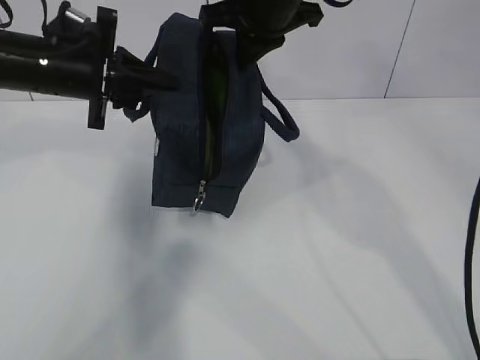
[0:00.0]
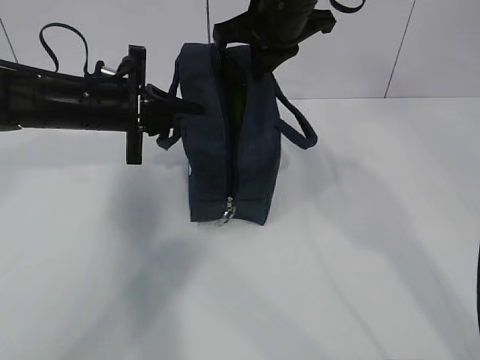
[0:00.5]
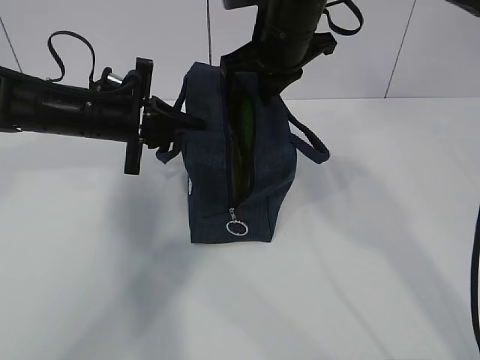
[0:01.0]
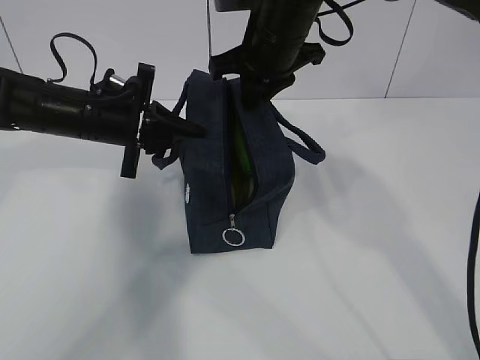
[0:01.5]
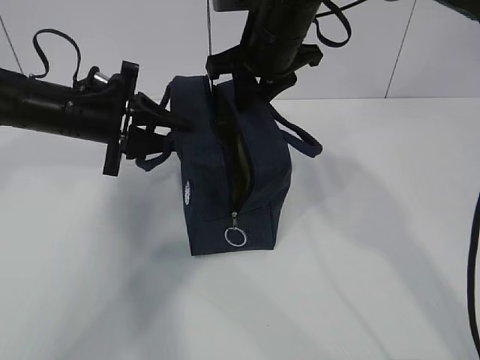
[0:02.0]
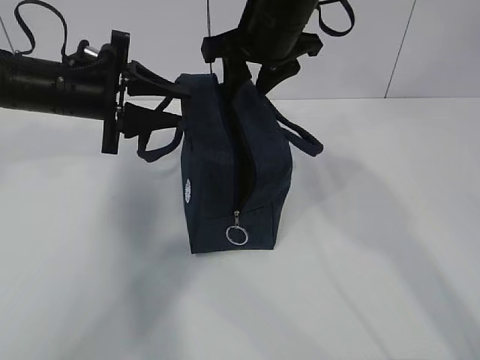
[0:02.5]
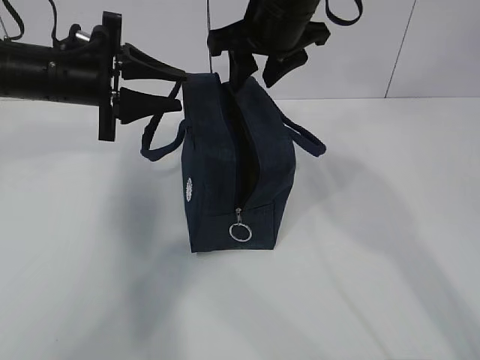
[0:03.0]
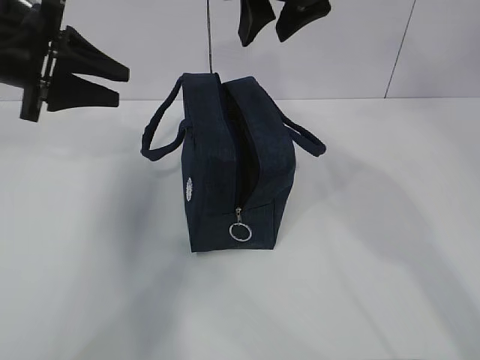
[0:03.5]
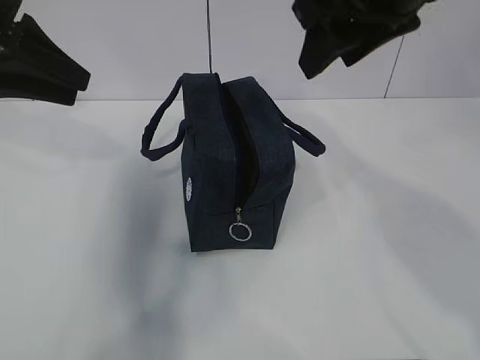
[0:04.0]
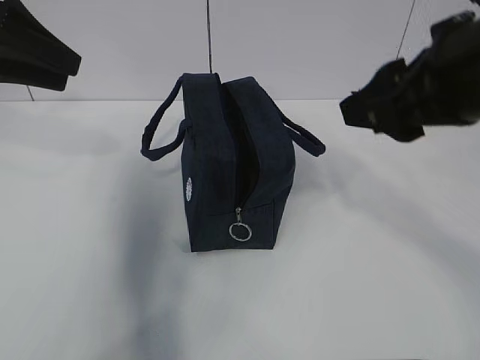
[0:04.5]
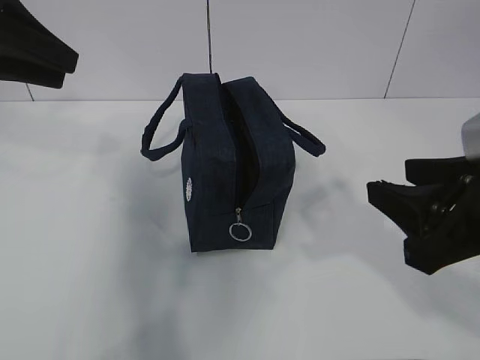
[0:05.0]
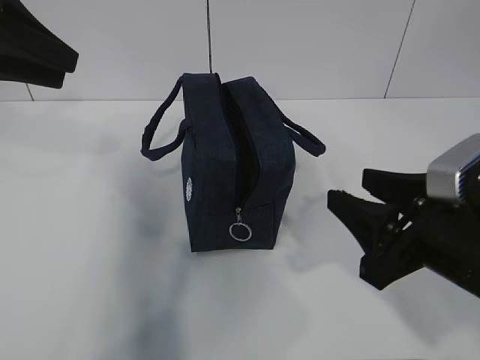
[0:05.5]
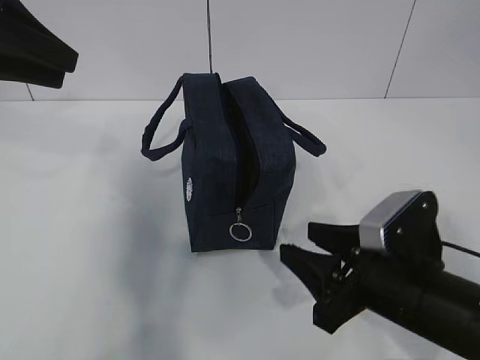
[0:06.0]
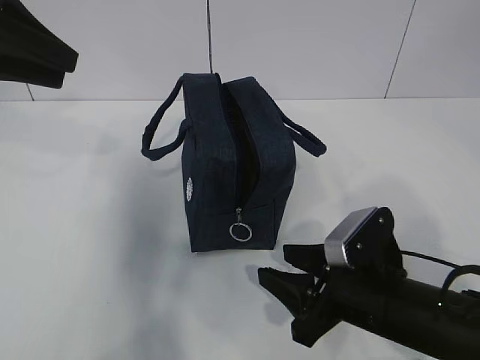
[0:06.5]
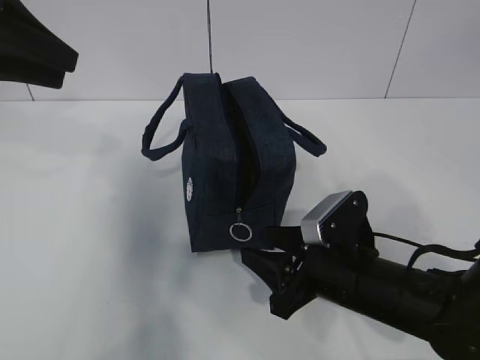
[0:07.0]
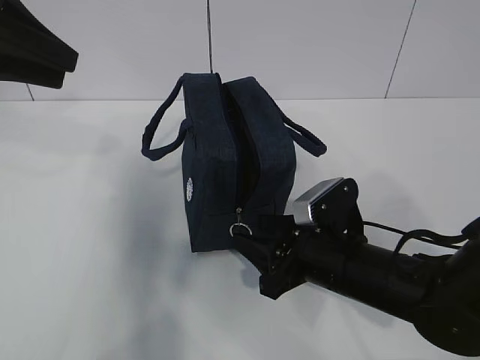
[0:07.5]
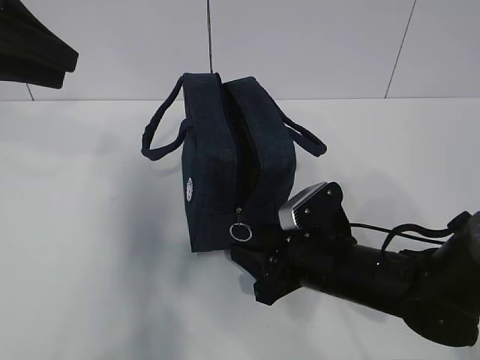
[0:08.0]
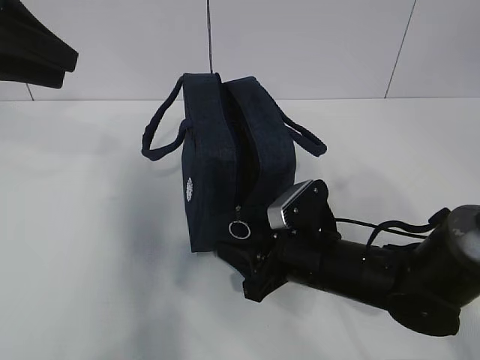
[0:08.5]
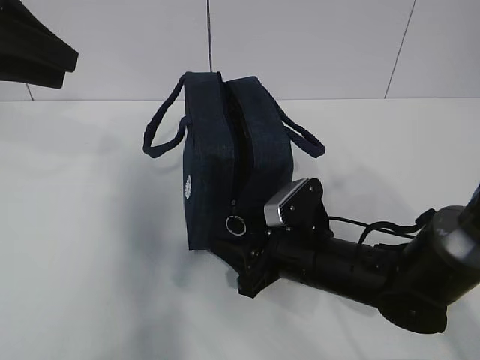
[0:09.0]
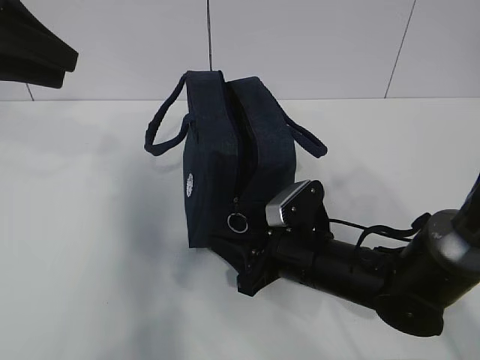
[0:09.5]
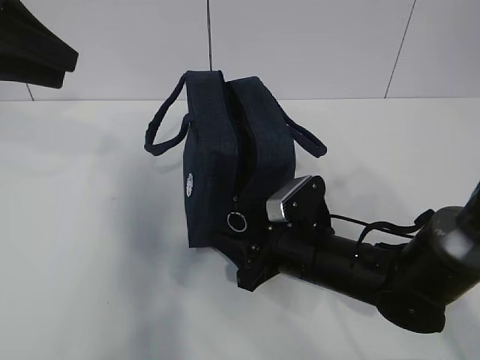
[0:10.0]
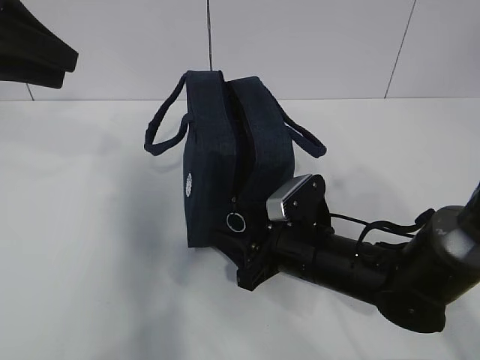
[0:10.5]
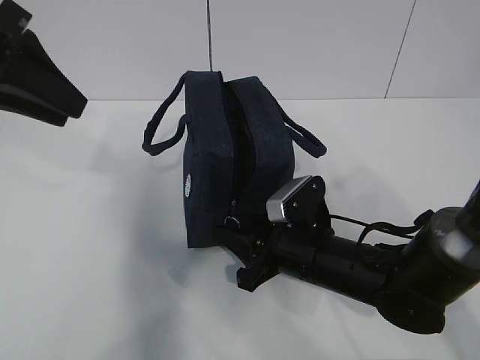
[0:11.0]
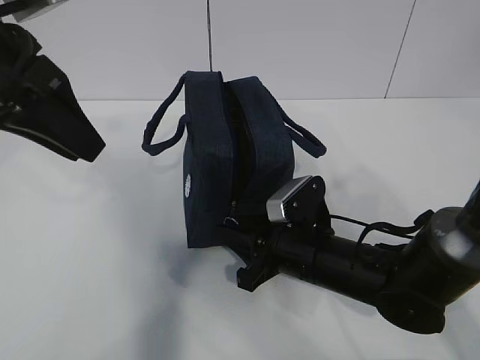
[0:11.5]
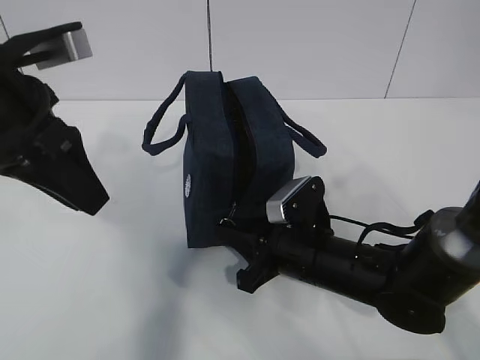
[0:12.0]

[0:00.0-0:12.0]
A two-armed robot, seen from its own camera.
0:00.0 to 0:02.0: The left gripper shifts some 5 cm downward, and opens its fingers, while the right gripper opens up.
0:02.0 to 0:04.0: The right gripper goes about 15 cm backward, upward and to the right. Meanwhile the left gripper goes some 15 cm upward, backward and to the left.
0:04.0 to 0:06.0: The right gripper is displaced downward by some 25 cm.
0:06.0 to 0:08.0: The right gripper heads forward, covering roughly 5 cm.
0:08.0 to 0:10.0: The grippers move only a little.
0:10.0 to 0:12.0: The left gripper moves to the right, about 5 cm. Meanwhile the right gripper closes.

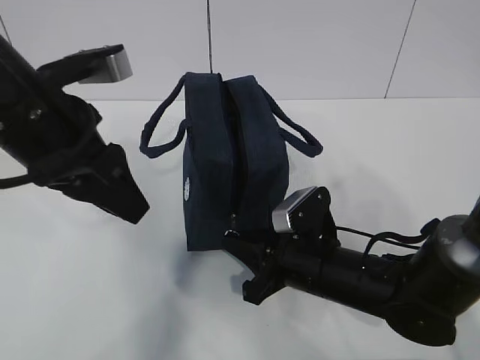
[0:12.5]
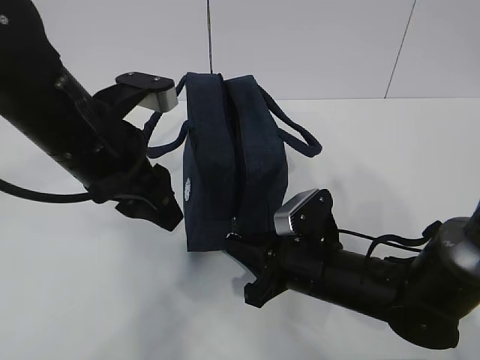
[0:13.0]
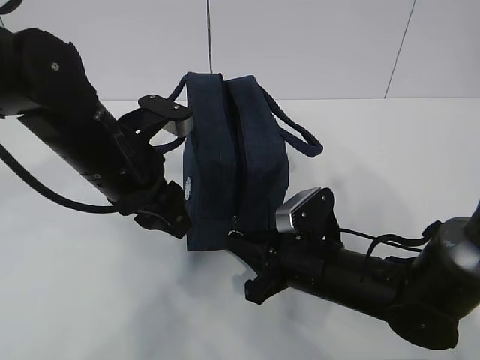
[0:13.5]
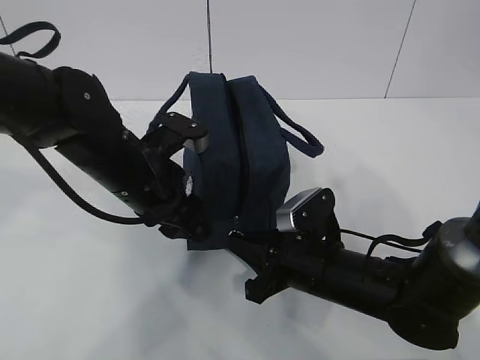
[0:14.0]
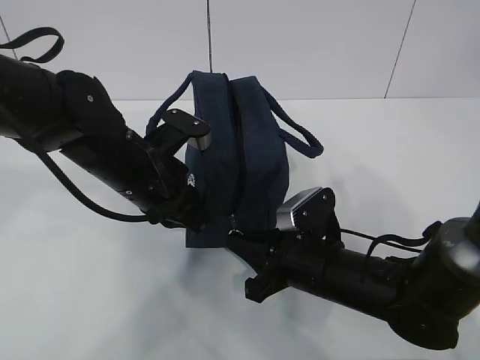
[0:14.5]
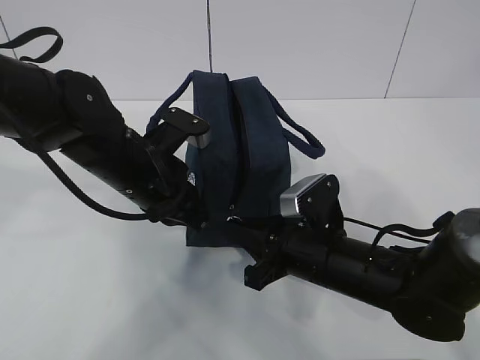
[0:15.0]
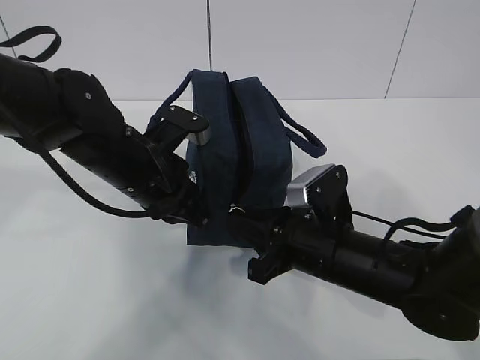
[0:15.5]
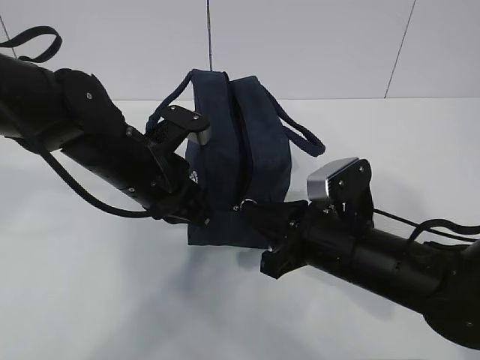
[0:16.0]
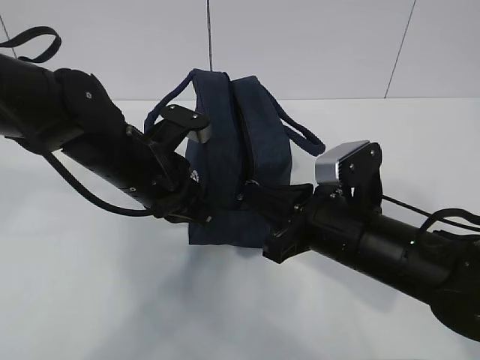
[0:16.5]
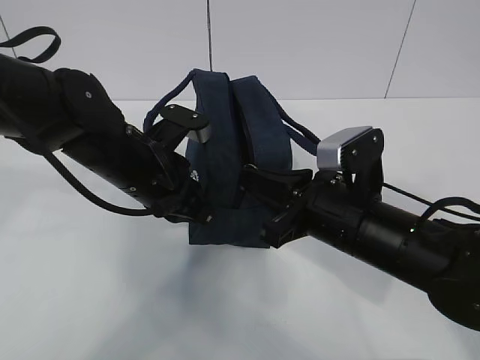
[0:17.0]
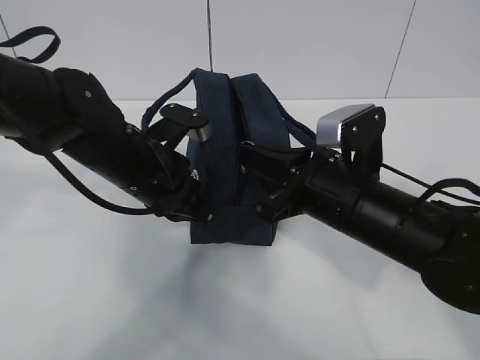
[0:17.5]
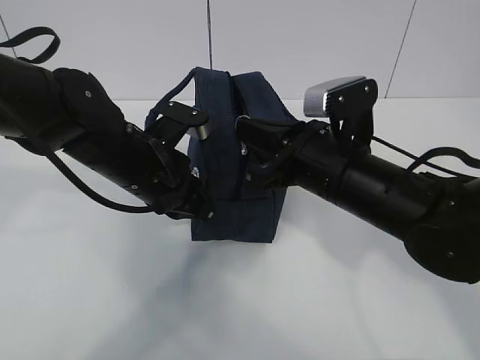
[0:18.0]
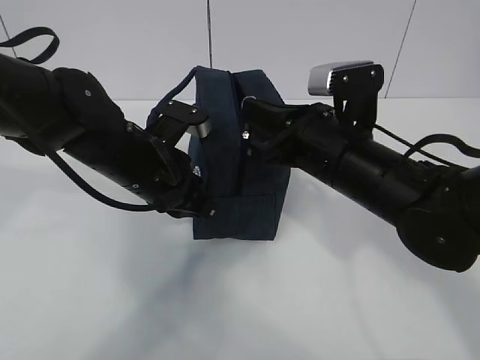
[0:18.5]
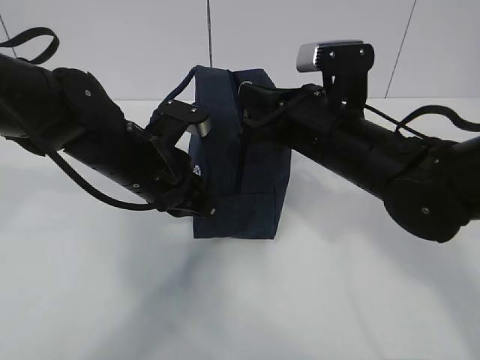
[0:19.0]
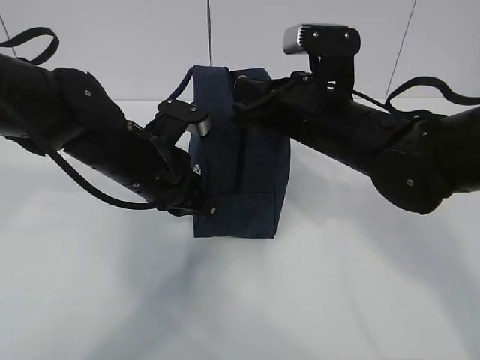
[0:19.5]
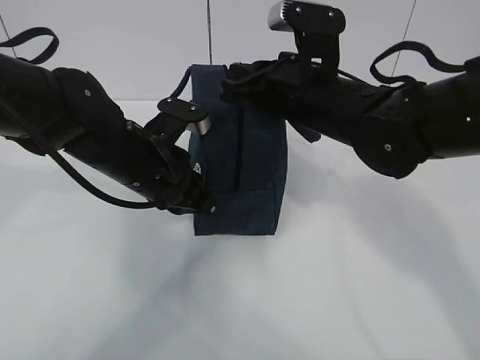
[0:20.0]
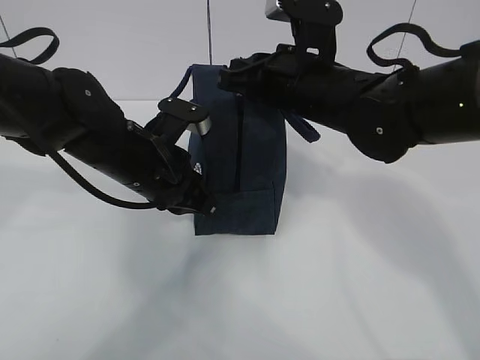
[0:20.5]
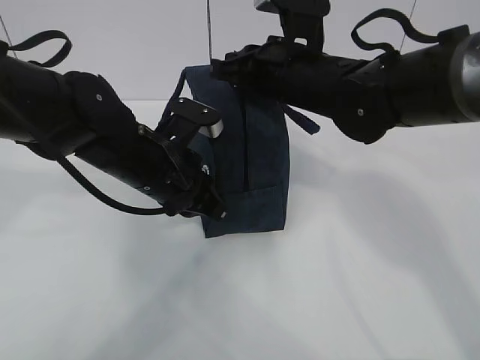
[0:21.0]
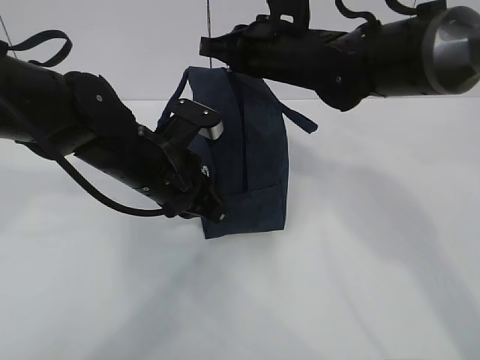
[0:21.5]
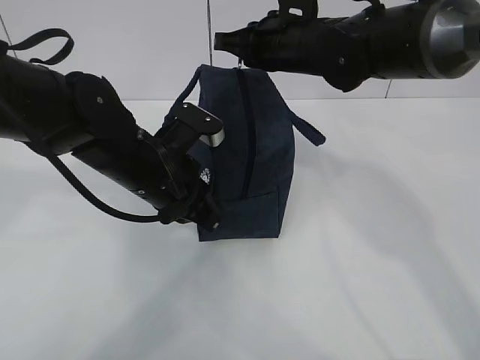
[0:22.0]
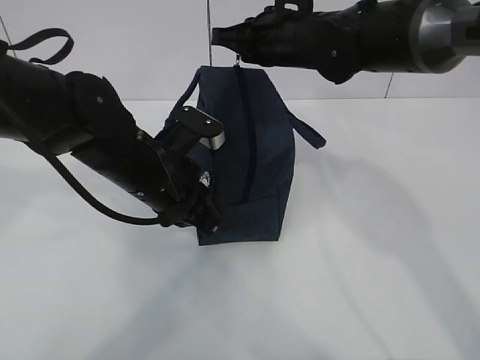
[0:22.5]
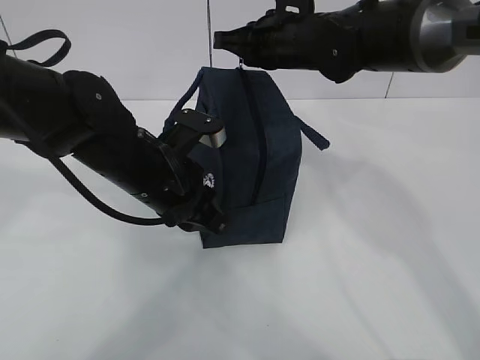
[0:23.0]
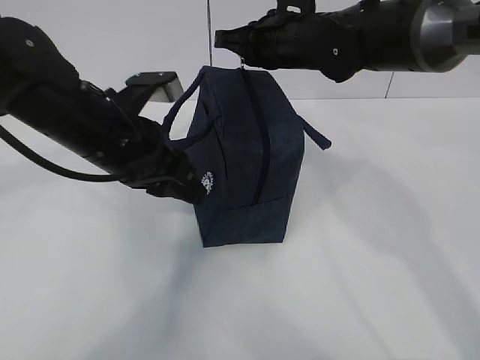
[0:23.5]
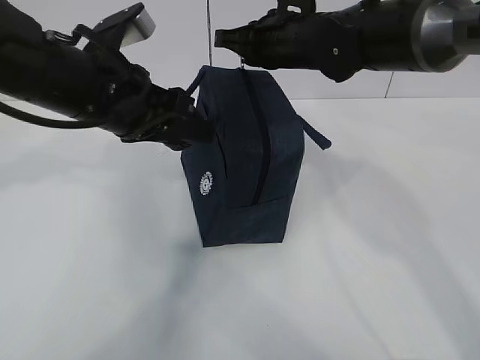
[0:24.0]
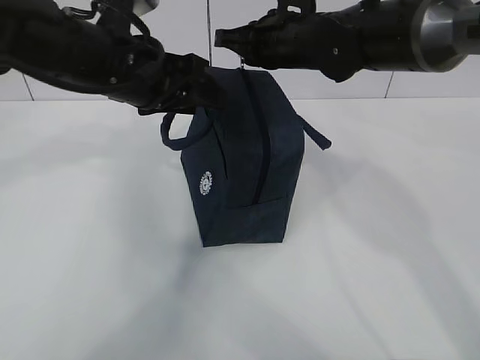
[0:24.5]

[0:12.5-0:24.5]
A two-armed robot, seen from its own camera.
Step, 0:13.0 to 0:21.0: Pull the zipper with your right hand.
0:12.5 to 0:14.5: The left gripper moves downward, forward and to the right, roughly 15 cm, and closes up.
0:14.5 to 0:16.5: The right gripper is displaced upward by about 5 cm.
0:16.5 to 0:18.5: The right gripper goes approximately 5 cm upward.
0:18.5 to 0:20.5: The right gripper heads forward, covering about 5 cm.
0:20.5 to 0:22.5: The right gripper travels forward by about 10 cm.
0:22.5 to 0:24.5: The left gripper heads upward, covering some 10 cm, and opens its fingers.

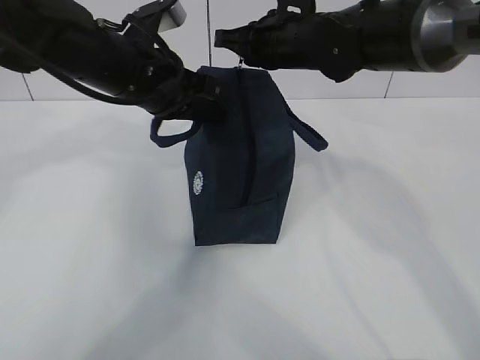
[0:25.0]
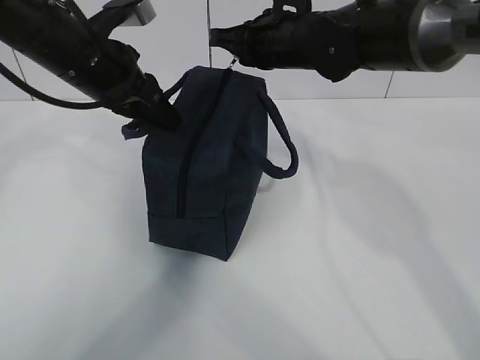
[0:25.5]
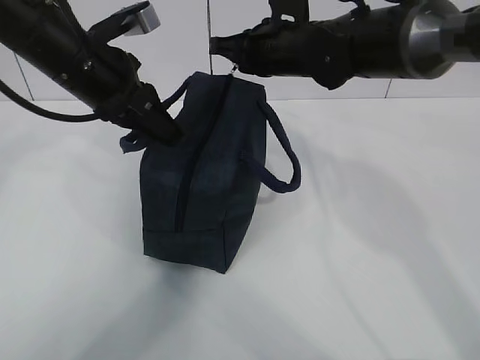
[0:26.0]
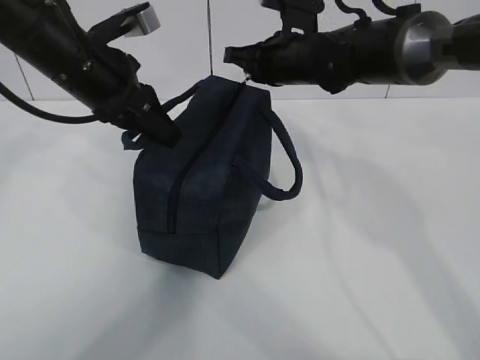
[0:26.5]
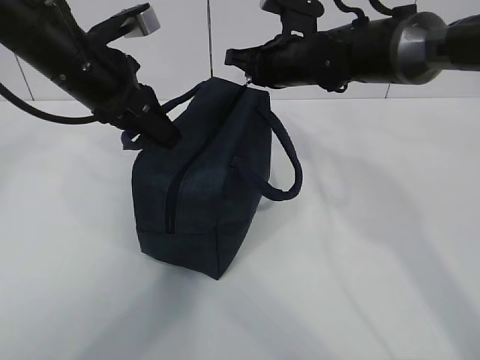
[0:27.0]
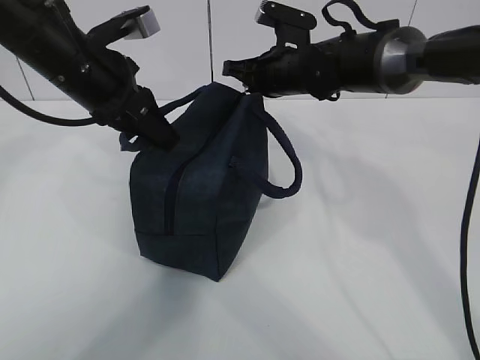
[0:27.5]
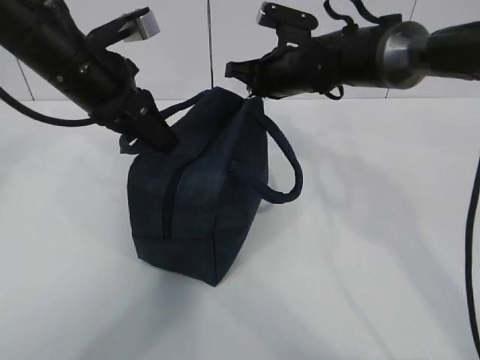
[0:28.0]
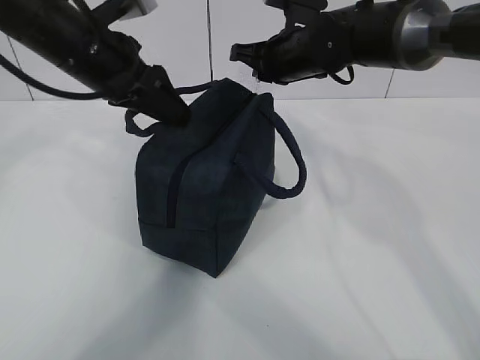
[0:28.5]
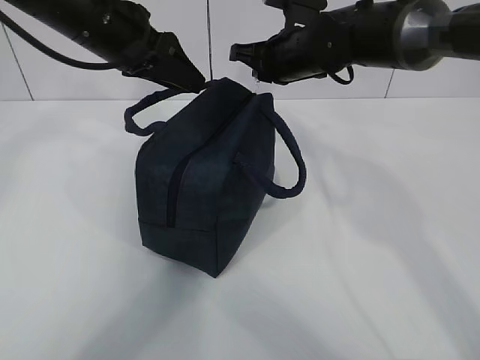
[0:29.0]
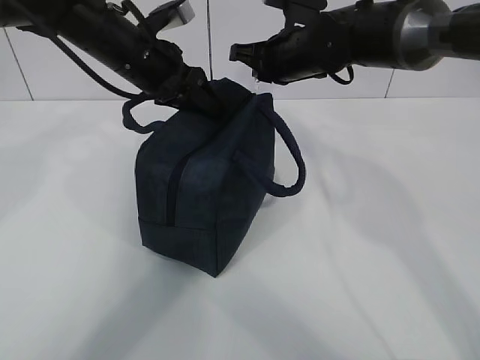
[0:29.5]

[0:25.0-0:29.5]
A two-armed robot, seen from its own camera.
0:27.0 to 0:29.5: The left gripper shifts about 5 cm forward, and opens.
